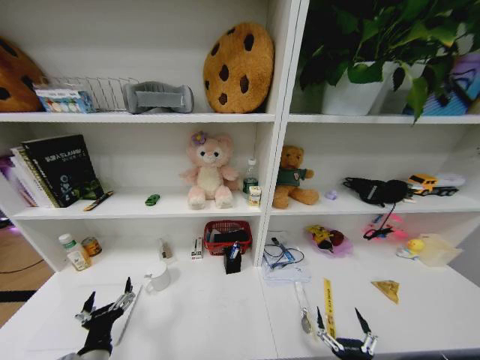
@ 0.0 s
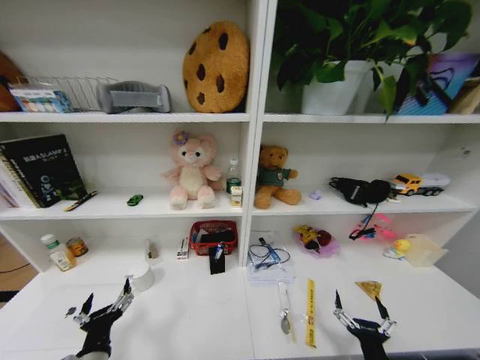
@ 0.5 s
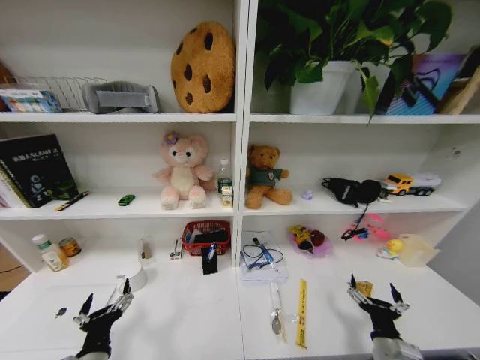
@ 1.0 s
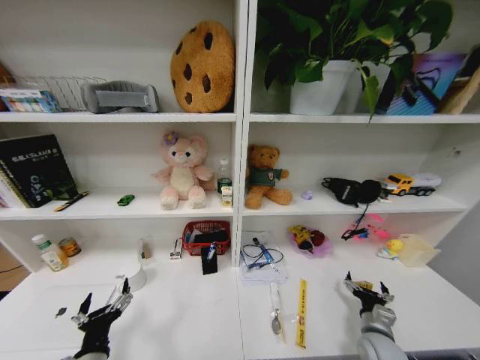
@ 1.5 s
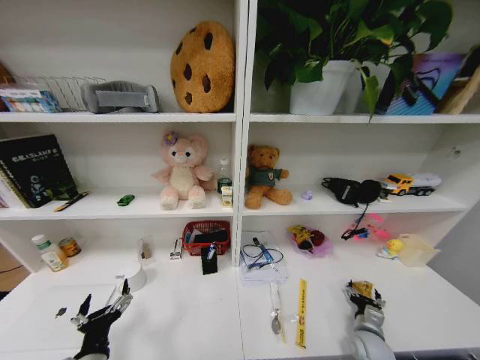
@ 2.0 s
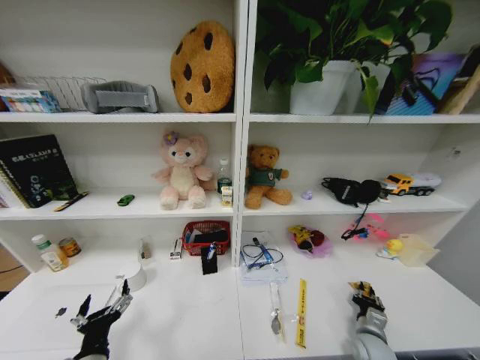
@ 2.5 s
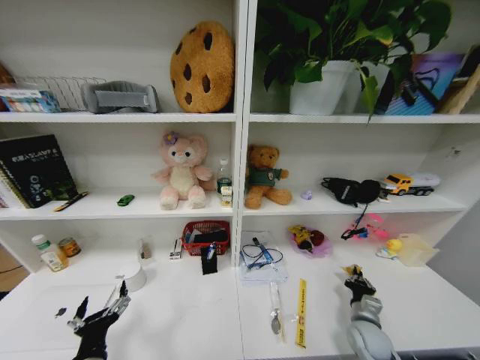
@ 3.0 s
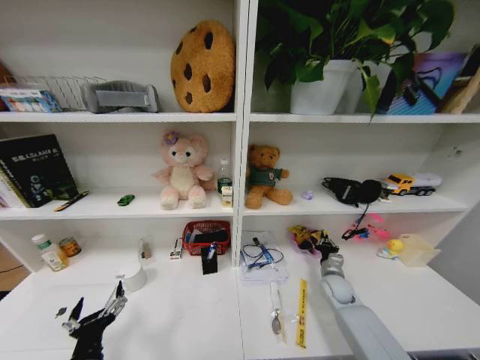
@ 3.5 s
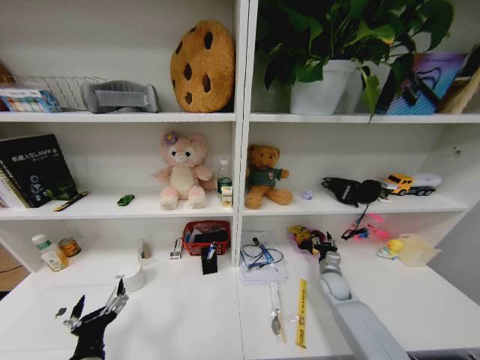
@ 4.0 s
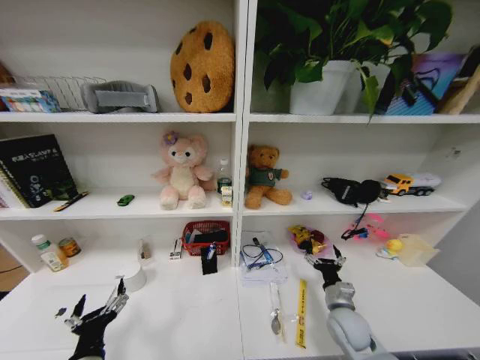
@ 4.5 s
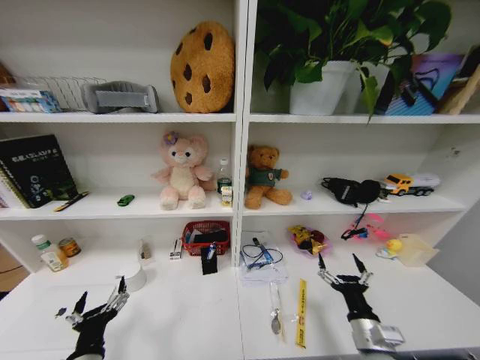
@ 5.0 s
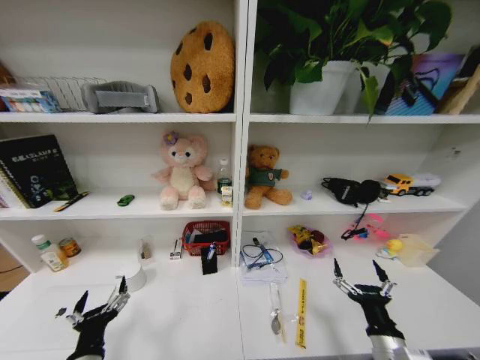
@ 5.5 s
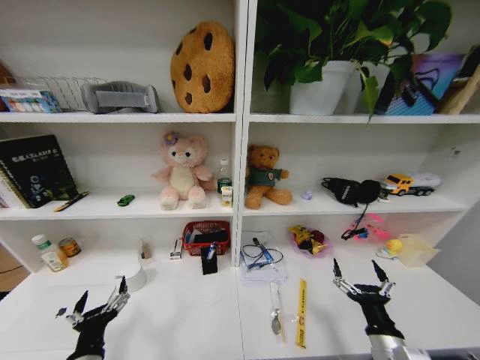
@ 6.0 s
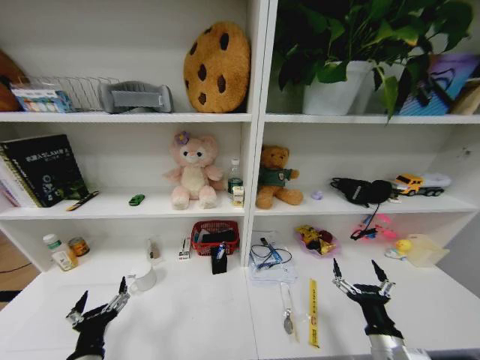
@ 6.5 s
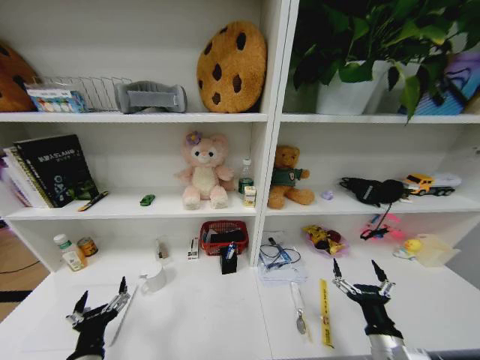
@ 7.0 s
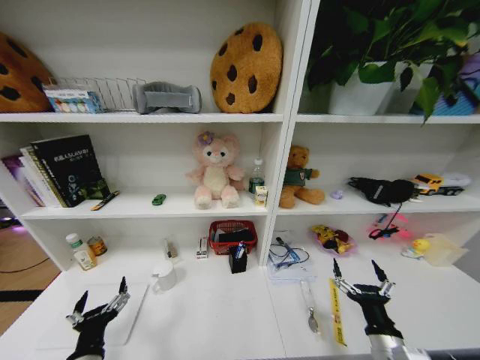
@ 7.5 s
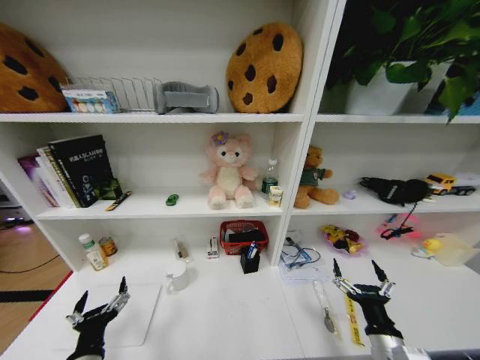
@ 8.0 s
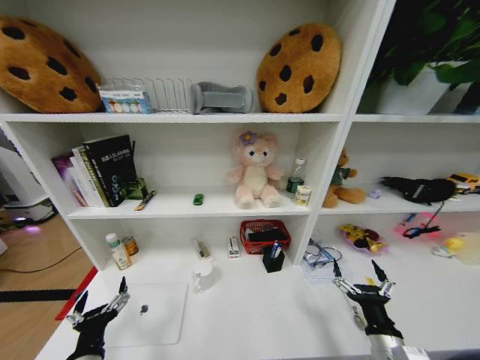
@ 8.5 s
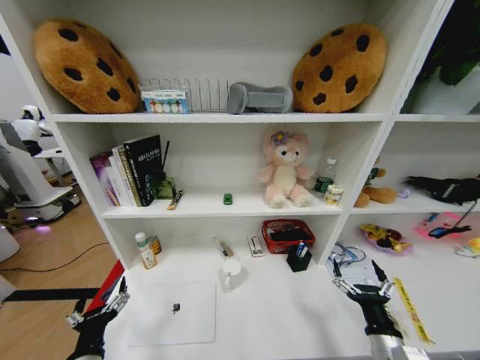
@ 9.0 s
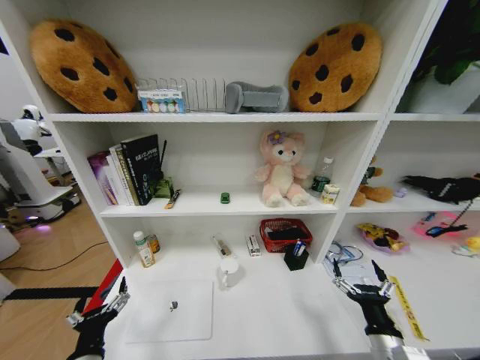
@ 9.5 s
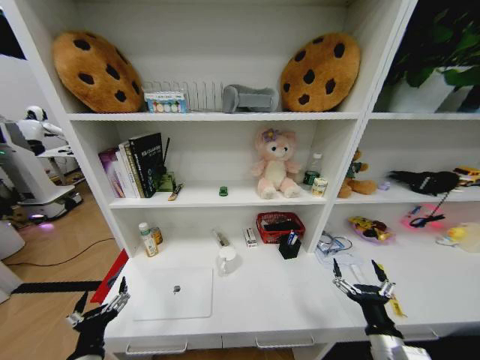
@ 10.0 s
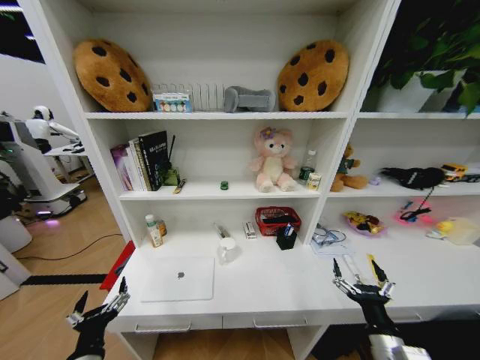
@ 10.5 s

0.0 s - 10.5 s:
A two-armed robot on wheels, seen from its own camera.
Task of the whole recording: Organize the objects on the table.
0.0 s - 2.0 s: The right gripper goes approximately 25 cm forward and to the right.
2.0 s - 4.0 s: The right gripper travels forward by some 15 cm, and closes.
4.0 s - 6.5 s: The right gripper moves backward, about 25 cm, and opens.

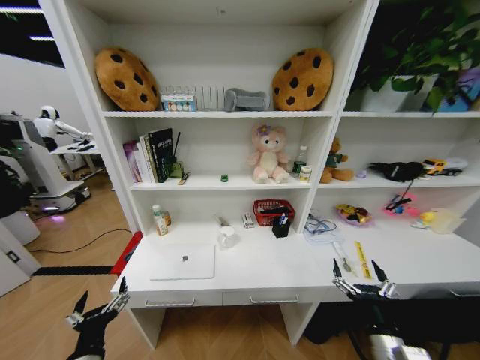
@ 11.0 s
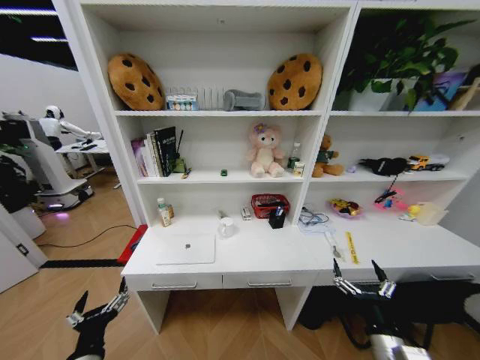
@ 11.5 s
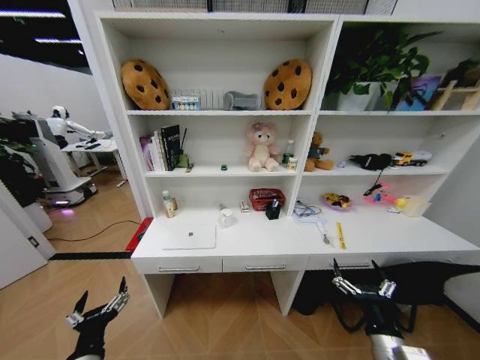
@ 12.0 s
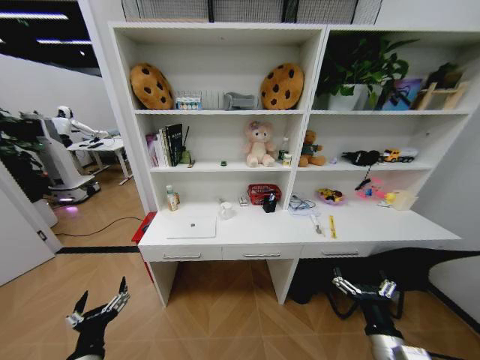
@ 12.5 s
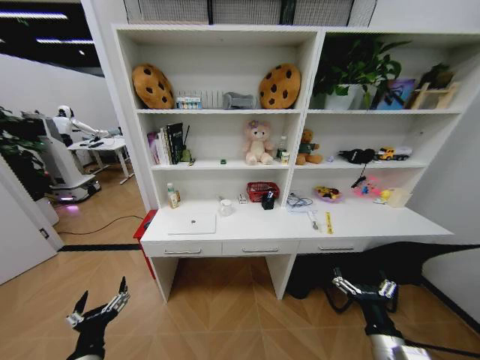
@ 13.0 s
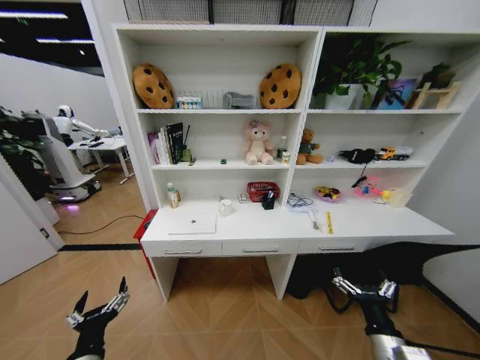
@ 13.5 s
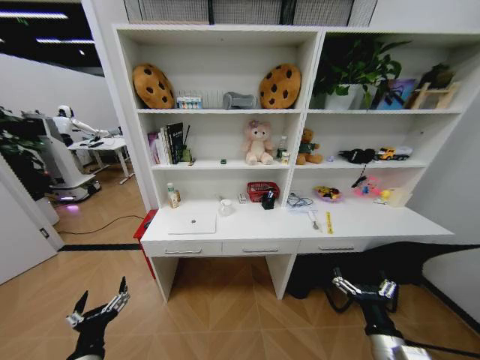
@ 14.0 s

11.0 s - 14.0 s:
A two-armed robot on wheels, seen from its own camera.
Task of the whole recording: Organize the objects on the table.
12.5 s - 14.0 s: The two grippers keep their place.

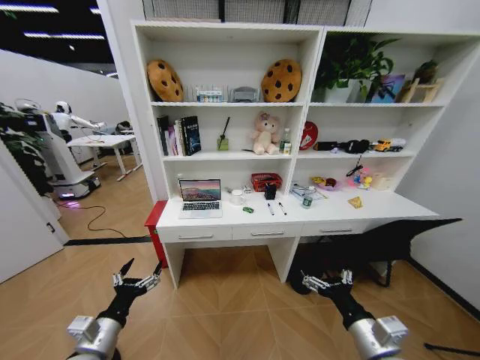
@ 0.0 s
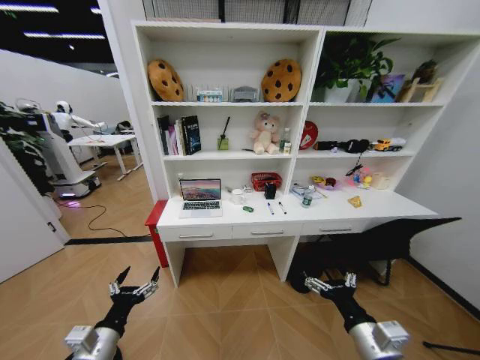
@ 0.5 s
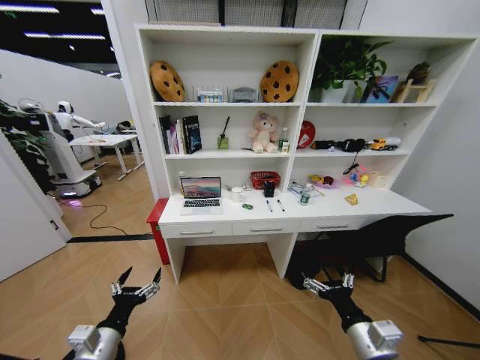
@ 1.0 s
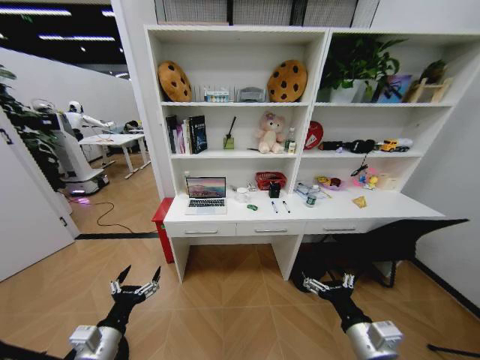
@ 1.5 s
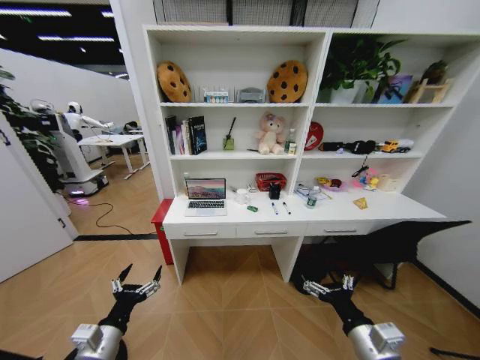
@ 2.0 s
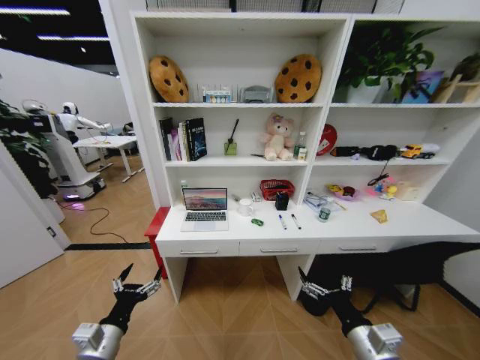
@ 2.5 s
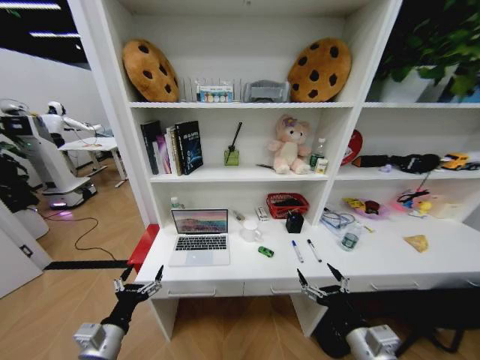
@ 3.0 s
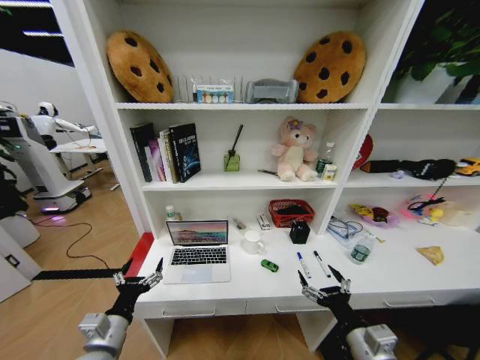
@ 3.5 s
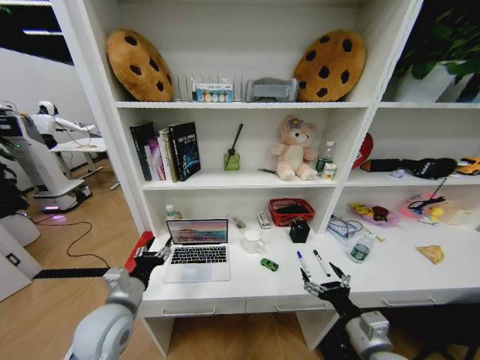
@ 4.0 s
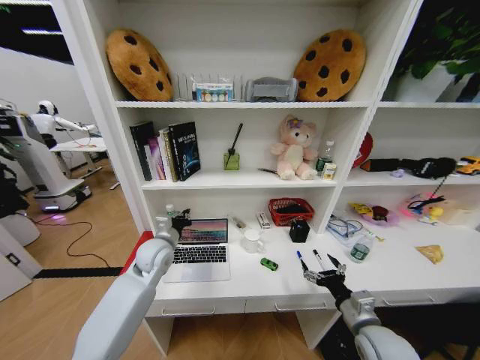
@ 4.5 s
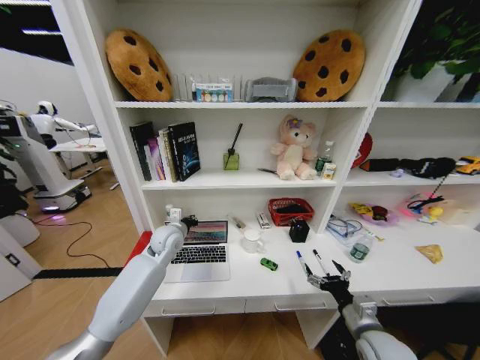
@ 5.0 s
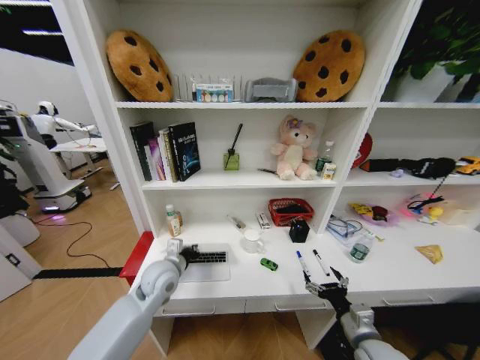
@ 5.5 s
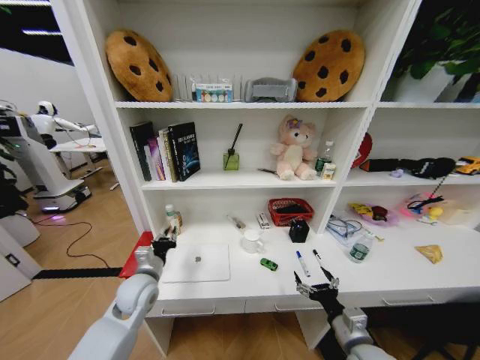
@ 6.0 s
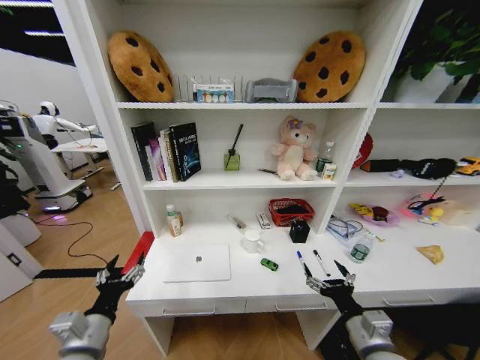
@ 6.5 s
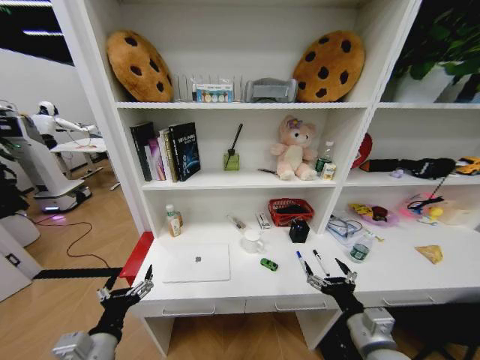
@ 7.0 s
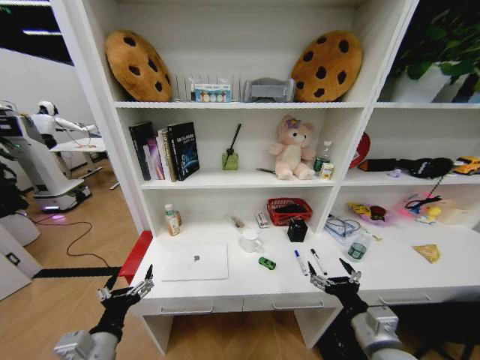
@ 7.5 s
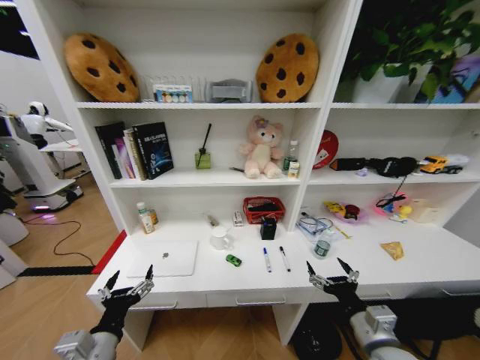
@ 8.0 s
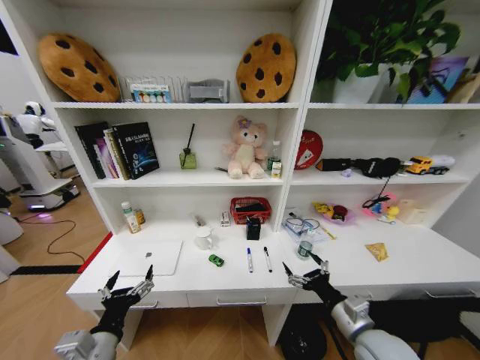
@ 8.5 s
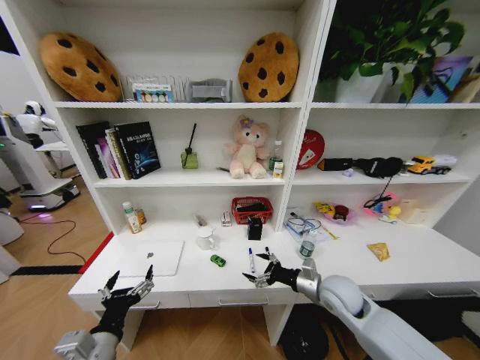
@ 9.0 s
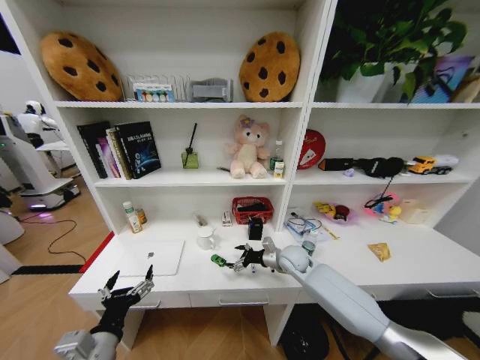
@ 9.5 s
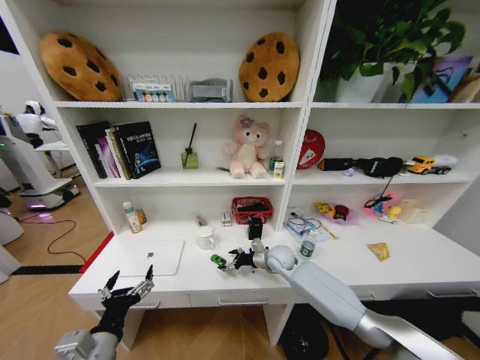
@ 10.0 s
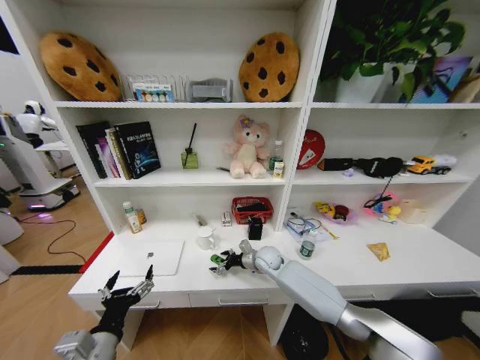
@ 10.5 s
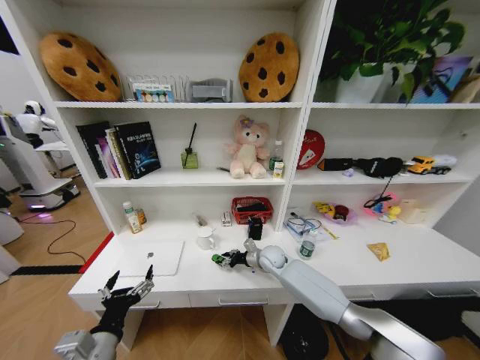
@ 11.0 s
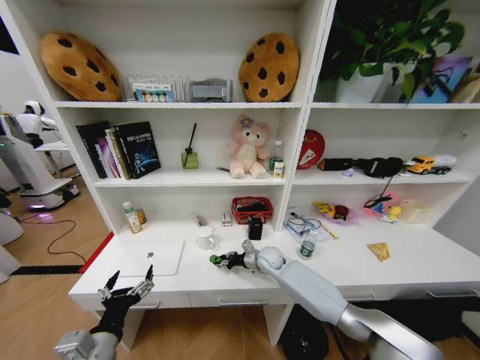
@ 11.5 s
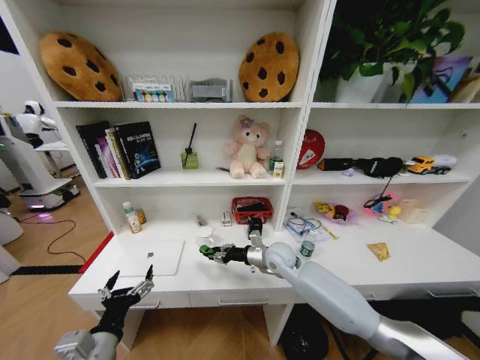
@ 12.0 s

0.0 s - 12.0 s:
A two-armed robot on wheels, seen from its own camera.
Task of the whole recording: Organize the objects on the table.
2.0 s - 4.0 s: The left gripper heads forward and upward, covering roughly 10 cm.
4.0 s - 6.0 s: The left gripper travels forward by some 10 cm, and closes up.
6.0 s - 8.0 s: The left gripper shifts about 20 cm backward, and opens up. Meanwhile the right gripper is displaced upward by some 5 cm.
8.0 s - 10.0 s: The right gripper shifts about 35 cm forward and to the left.
10.0 s - 12.0 s: The right gripper travels upward and backward by roughly 10 cm, and closes.
